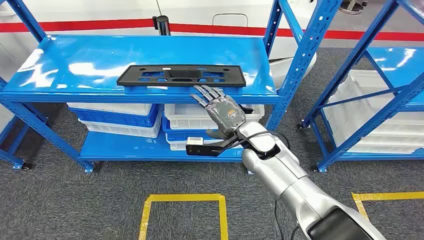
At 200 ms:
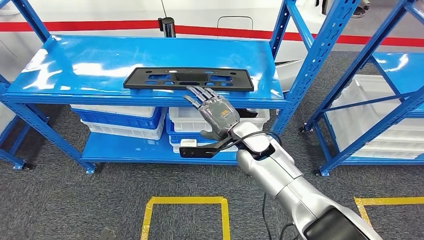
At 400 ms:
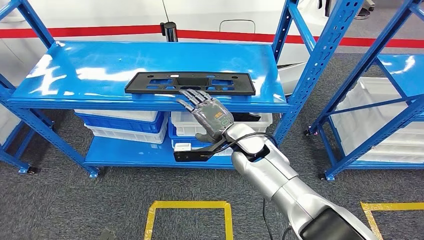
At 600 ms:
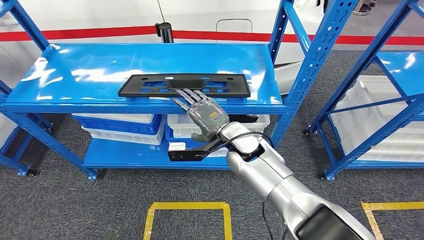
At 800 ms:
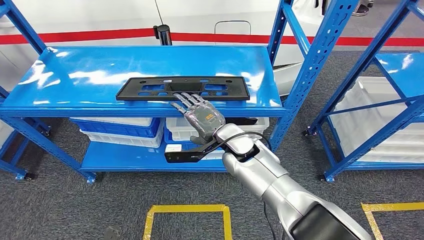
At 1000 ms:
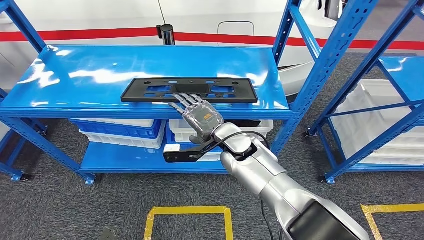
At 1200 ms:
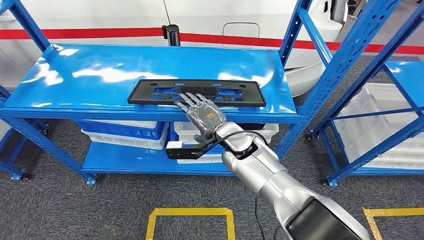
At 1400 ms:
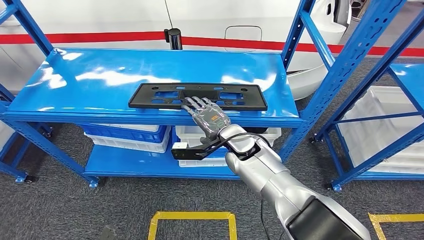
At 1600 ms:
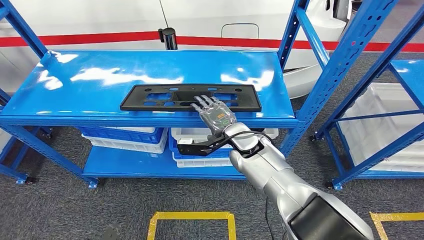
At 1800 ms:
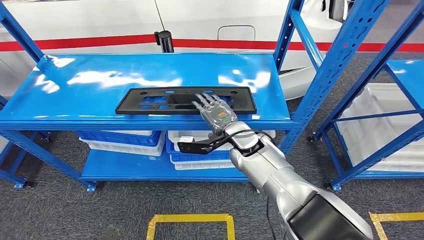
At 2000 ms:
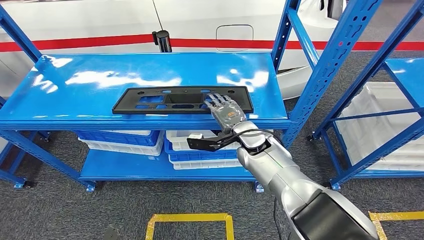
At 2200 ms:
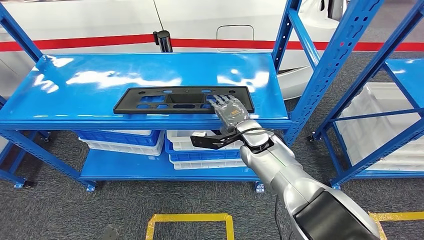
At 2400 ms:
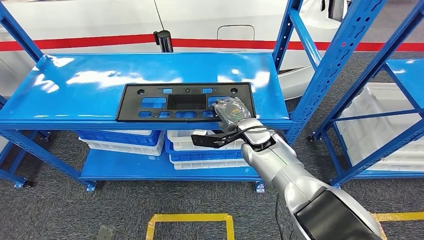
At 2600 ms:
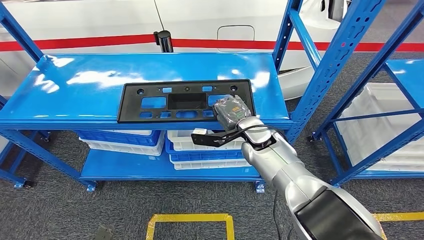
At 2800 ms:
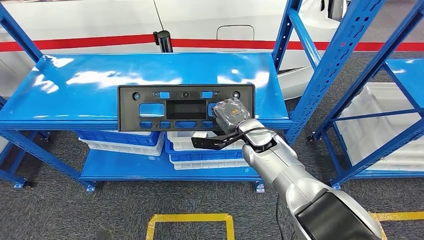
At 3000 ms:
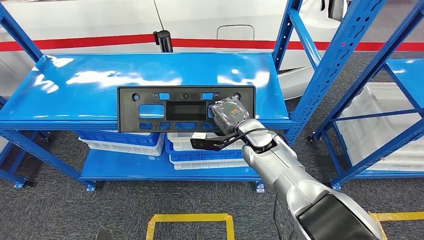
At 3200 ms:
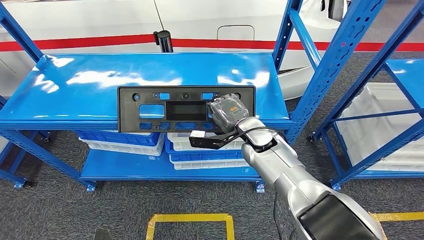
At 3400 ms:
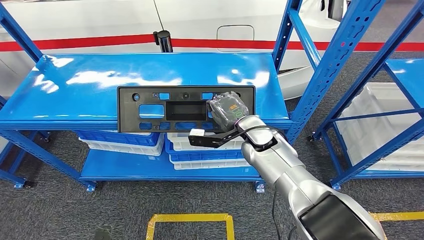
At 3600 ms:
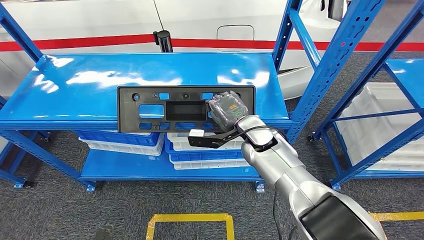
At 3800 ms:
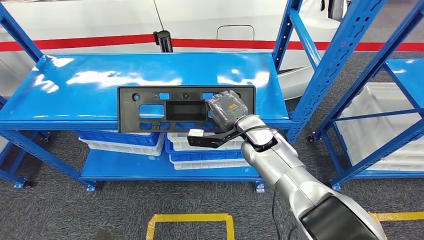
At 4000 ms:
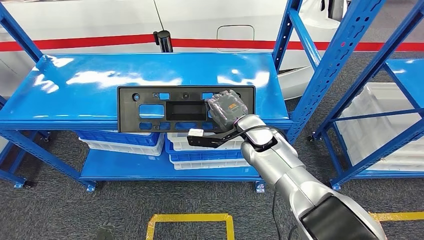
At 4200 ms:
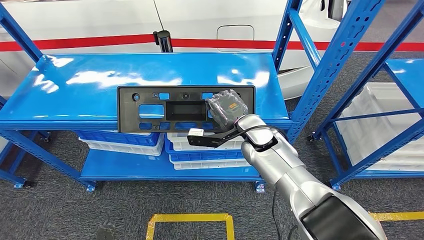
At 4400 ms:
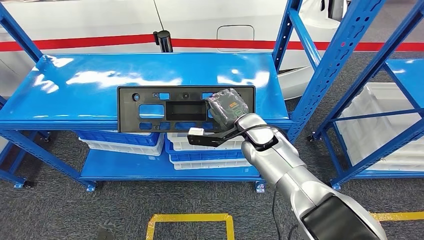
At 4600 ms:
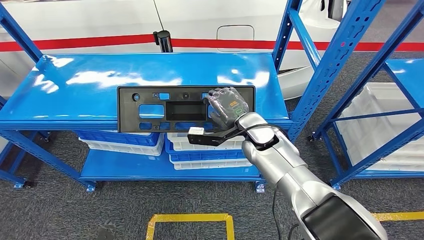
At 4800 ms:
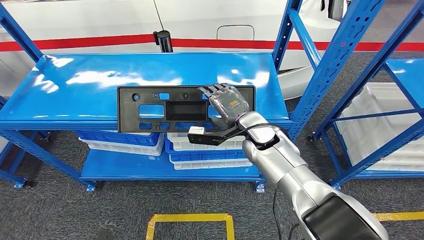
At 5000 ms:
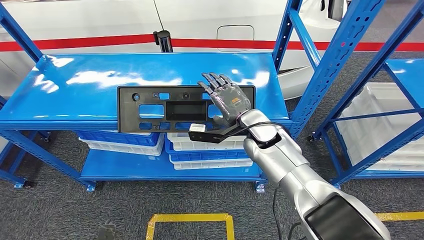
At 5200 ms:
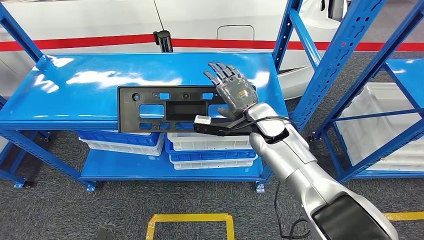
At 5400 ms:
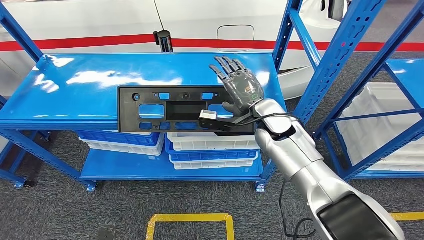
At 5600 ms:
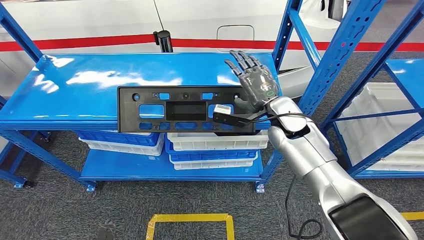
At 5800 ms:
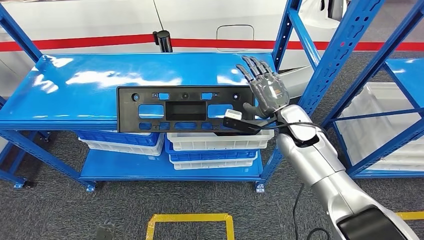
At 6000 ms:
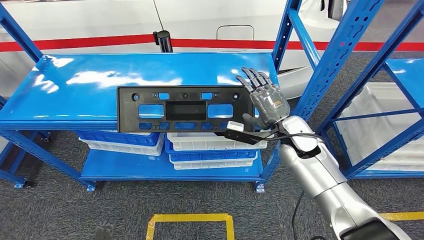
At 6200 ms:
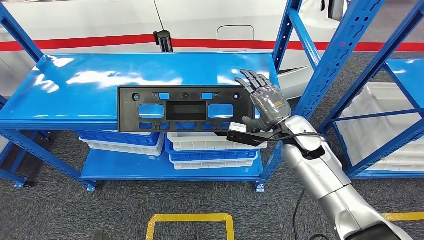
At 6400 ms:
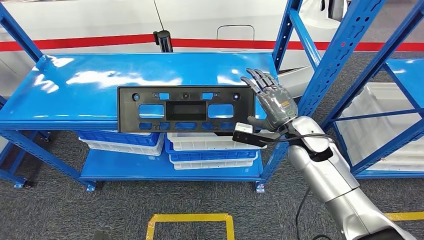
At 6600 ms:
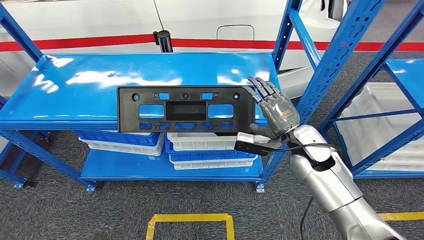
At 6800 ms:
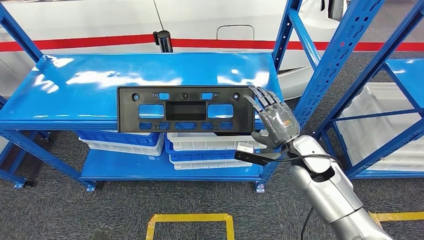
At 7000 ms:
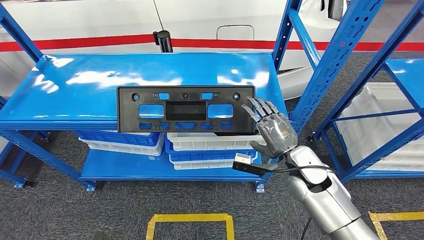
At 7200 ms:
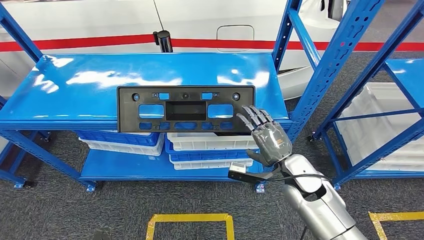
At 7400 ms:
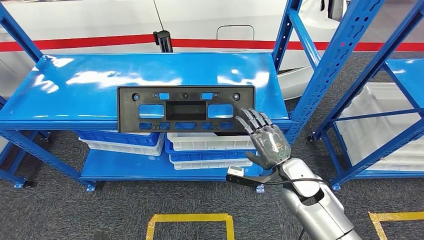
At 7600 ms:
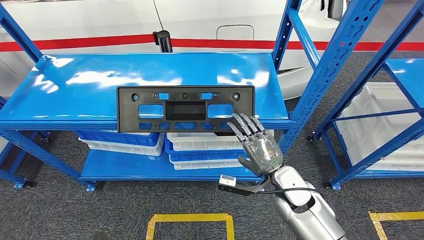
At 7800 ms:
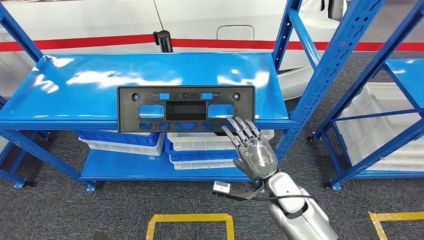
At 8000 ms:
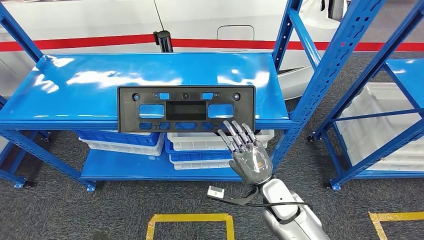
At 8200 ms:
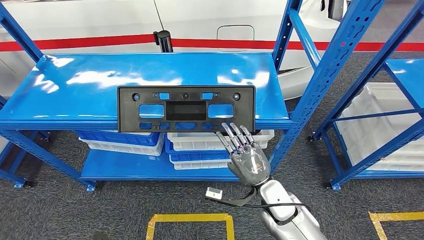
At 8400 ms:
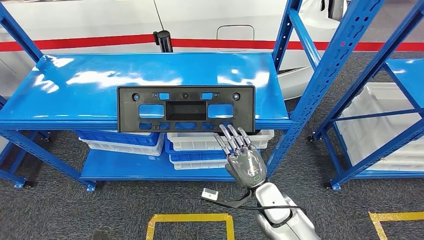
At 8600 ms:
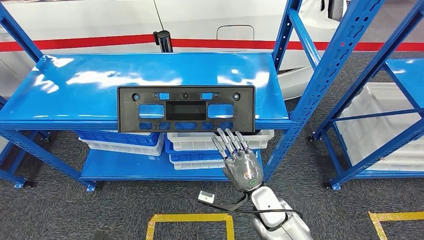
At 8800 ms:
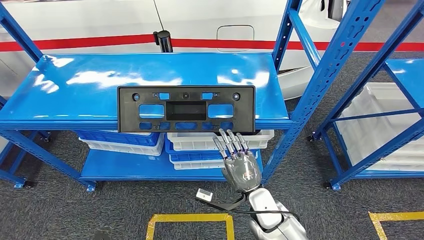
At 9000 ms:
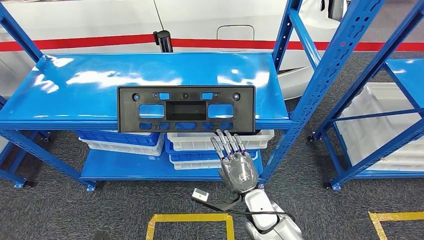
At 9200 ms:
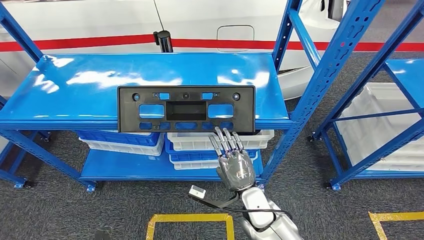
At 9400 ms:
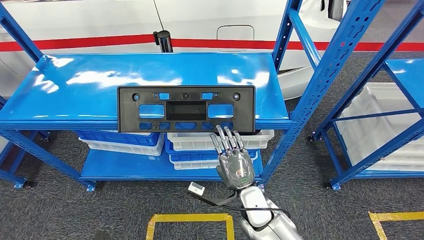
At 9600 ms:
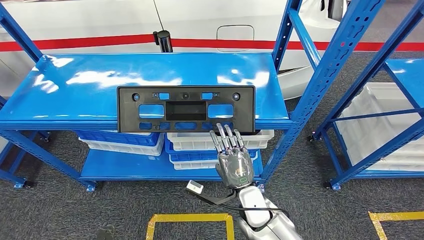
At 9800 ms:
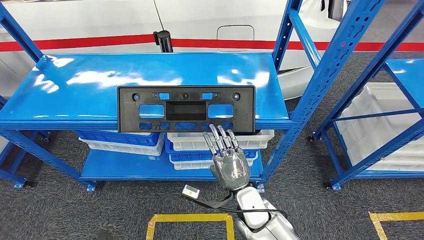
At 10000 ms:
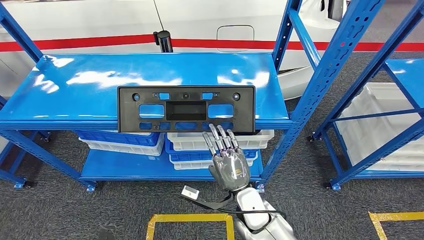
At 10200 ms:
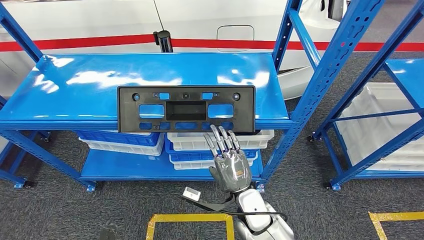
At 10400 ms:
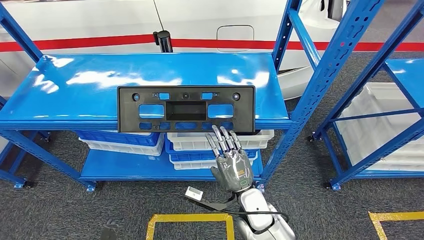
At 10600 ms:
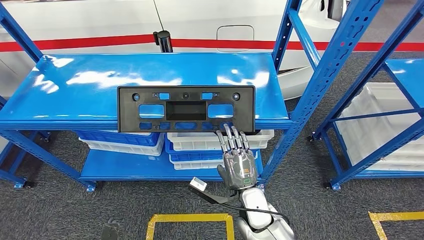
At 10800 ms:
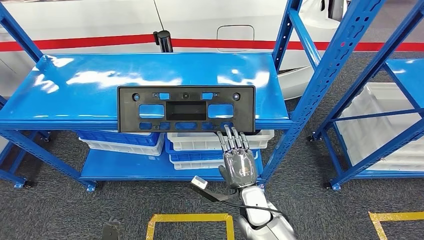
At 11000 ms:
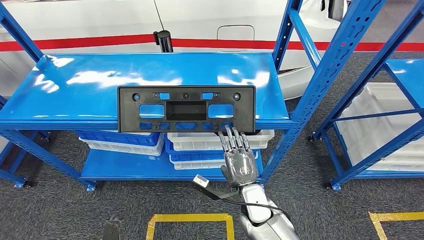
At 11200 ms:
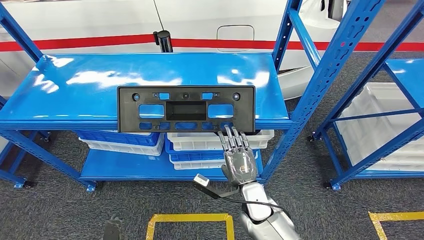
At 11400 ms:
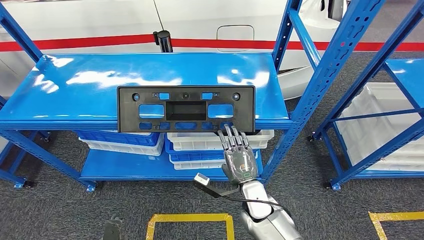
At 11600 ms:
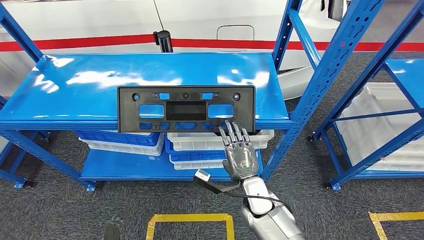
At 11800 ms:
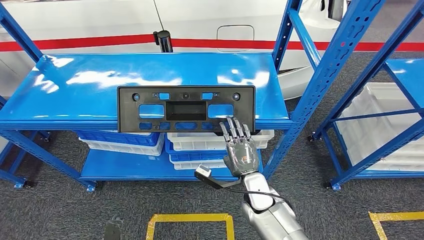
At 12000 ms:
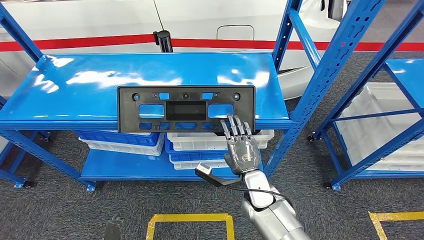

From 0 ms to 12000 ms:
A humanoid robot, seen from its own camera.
From 3000 ms to 4400 ms: The hands move only a little.
From 4400 ms to 6000 ms: The right hand moves to the right, roughly 10 cm.
From 6000 ms to 7600 ms: The right hand heads backward and downward, covering roughly 15 cm.
From 7600 ms to 9000 ms: The right hand travels to the left and downward by roughly 10 cm.
From 9000 ms to 10400 ms: There are only small adjustments of the hands.
From 10400 ms to 12000 ms: The right hand shifts about 5 cm forward.

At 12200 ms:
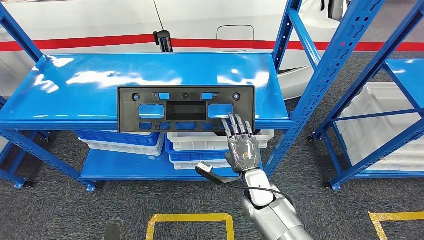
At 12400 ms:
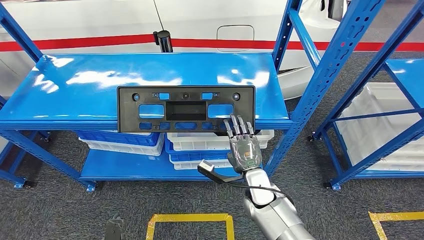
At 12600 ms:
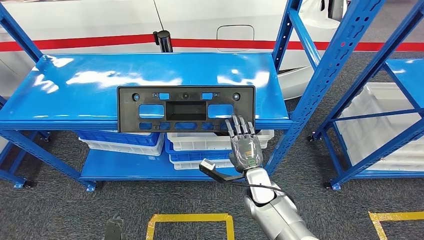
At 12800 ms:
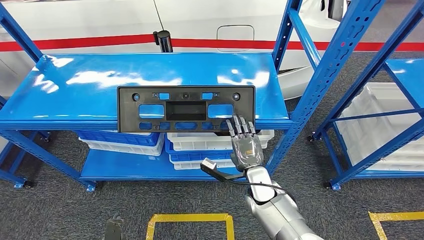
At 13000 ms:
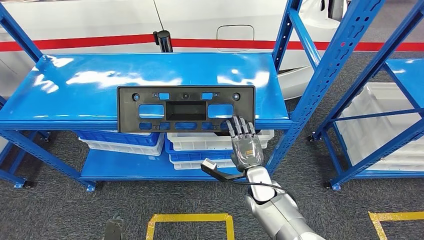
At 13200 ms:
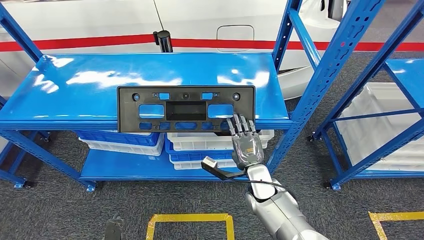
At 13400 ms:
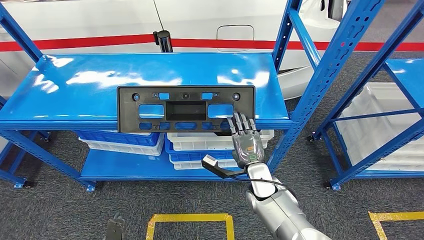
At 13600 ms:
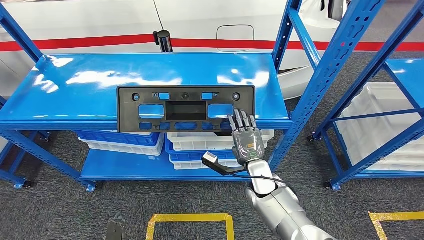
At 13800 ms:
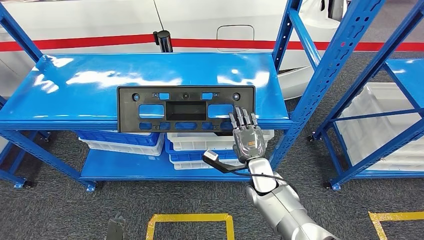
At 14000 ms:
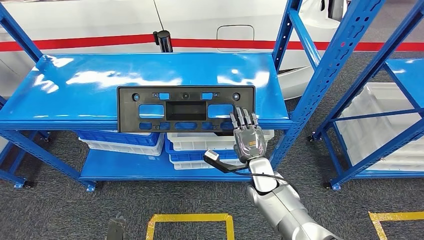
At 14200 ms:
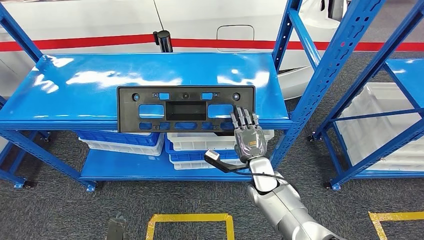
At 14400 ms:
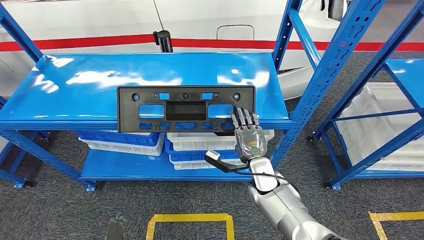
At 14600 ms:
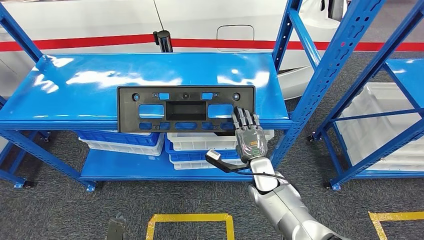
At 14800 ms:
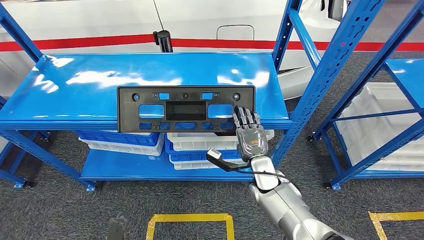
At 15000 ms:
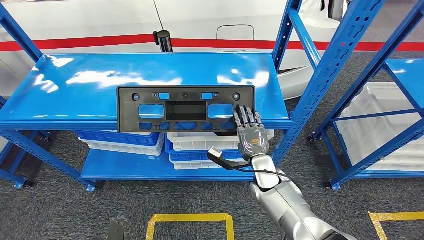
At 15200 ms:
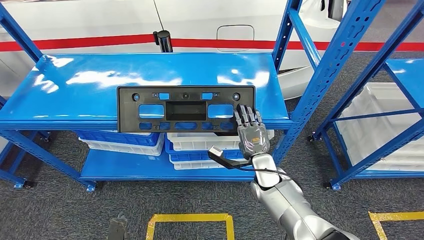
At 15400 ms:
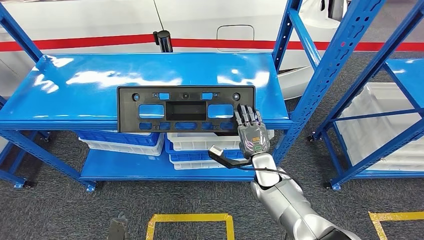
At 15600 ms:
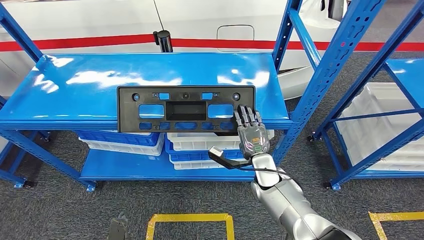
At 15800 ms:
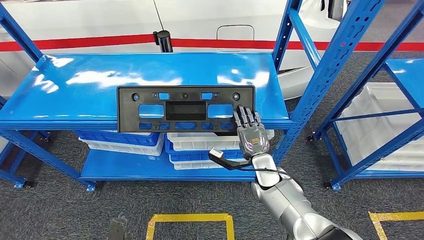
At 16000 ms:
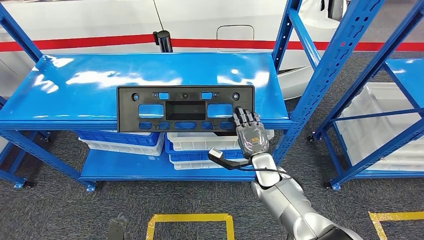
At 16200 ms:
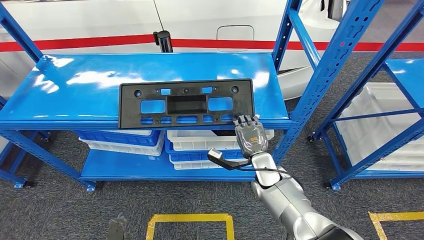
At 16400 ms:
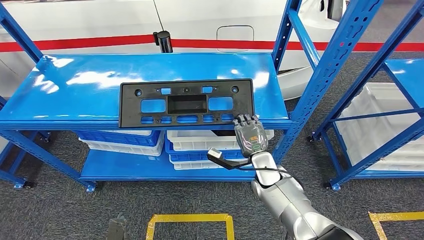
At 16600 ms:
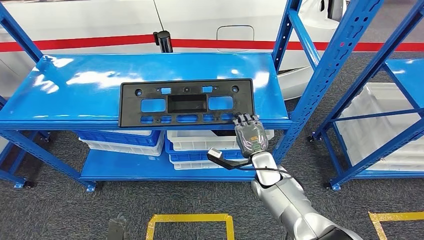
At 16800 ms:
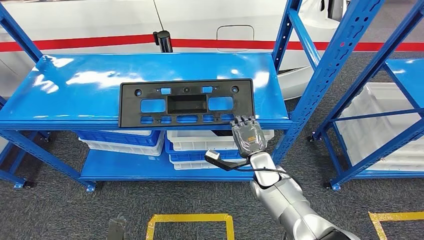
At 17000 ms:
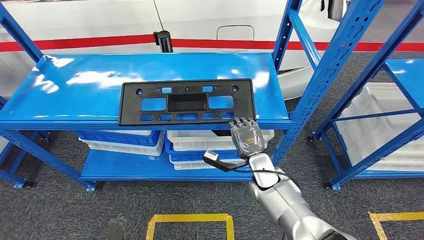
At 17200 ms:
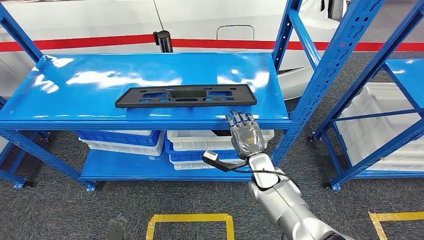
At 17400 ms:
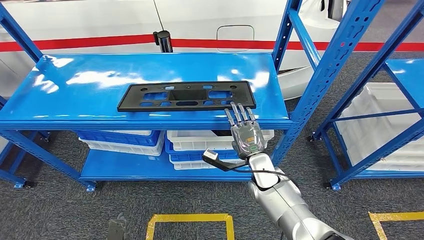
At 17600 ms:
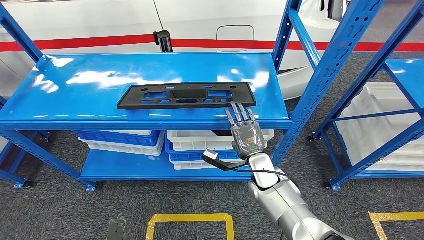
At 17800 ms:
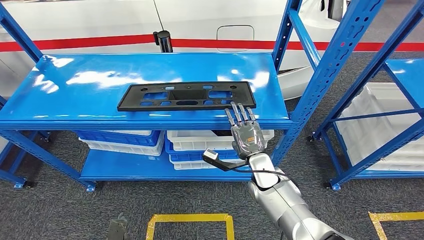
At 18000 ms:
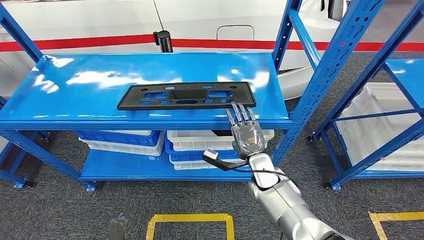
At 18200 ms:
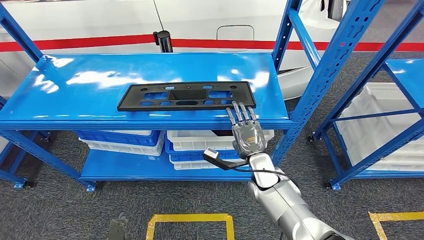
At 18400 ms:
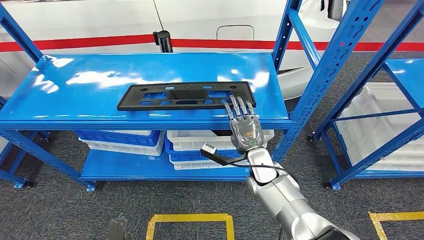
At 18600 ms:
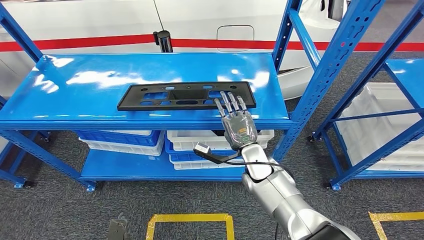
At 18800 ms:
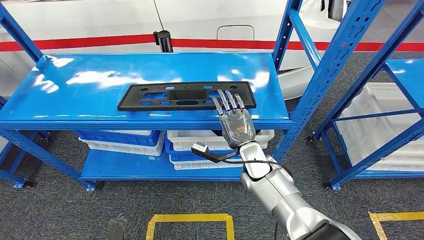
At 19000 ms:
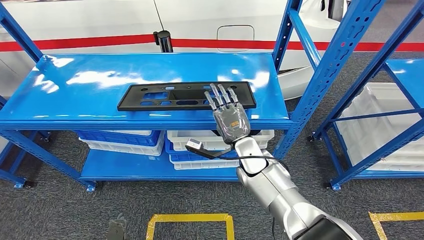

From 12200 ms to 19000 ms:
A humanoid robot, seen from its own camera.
From 12200 ms to 15000 ms: The hands move only a little.
From 15000 ms to 16200 ms: Both hands stay about where they are.
From 16200 ms to 17600 ms: The hands stay close to where they were, moving slightly.
From 17600 ms to 19000 ms: The right hand moves some 5 cm.
